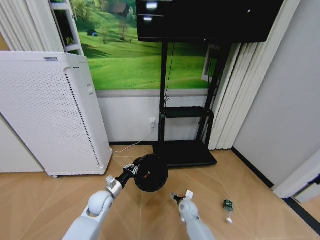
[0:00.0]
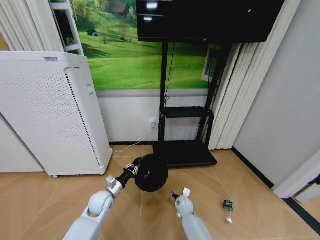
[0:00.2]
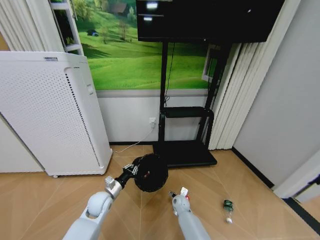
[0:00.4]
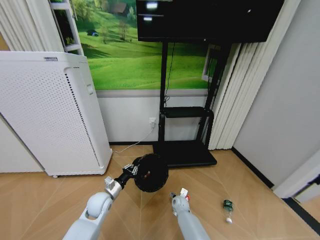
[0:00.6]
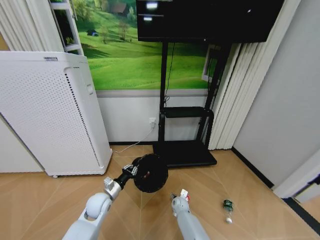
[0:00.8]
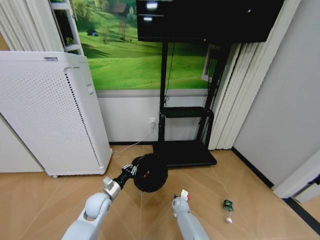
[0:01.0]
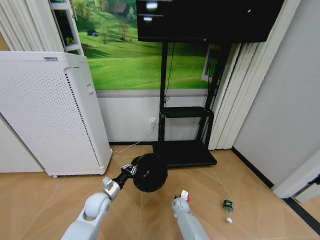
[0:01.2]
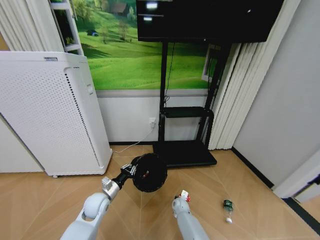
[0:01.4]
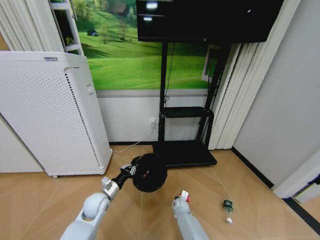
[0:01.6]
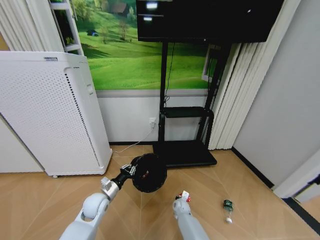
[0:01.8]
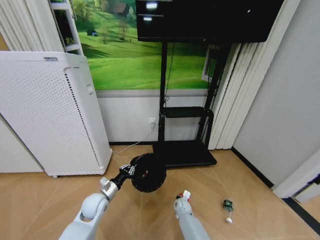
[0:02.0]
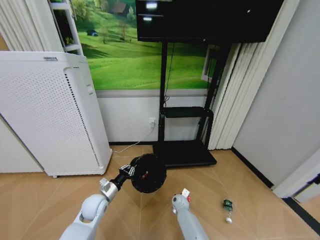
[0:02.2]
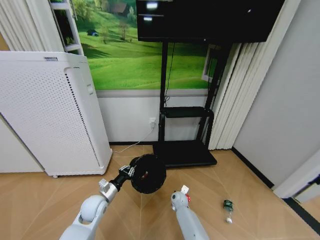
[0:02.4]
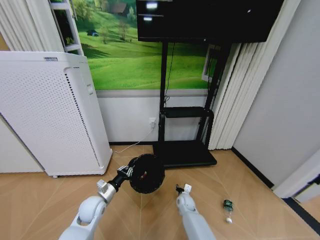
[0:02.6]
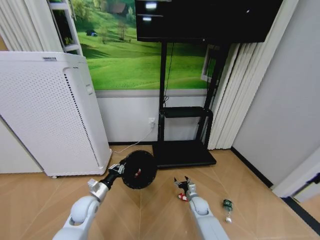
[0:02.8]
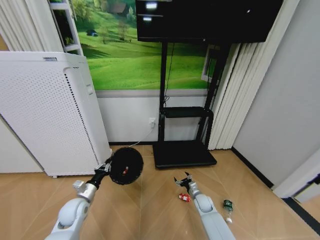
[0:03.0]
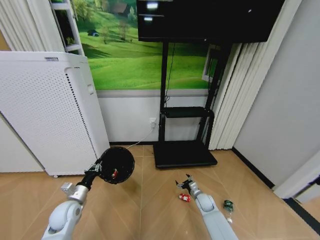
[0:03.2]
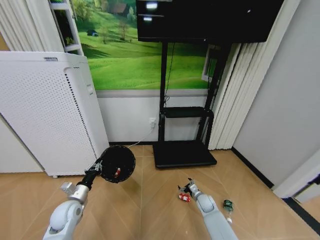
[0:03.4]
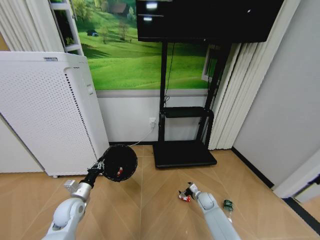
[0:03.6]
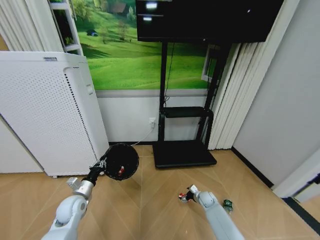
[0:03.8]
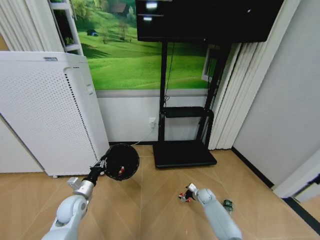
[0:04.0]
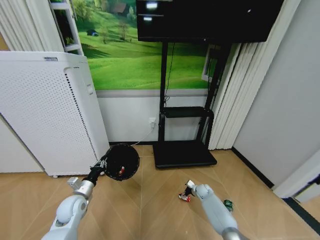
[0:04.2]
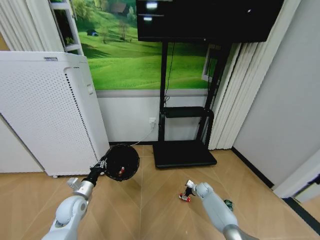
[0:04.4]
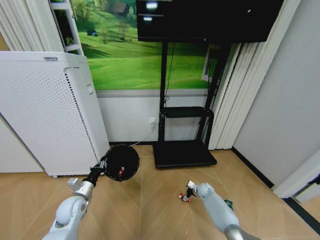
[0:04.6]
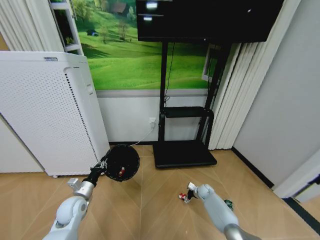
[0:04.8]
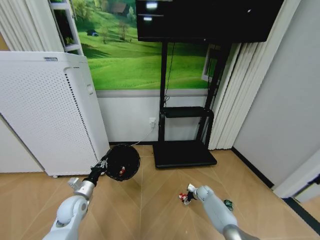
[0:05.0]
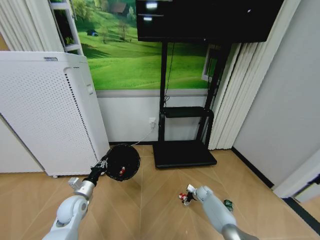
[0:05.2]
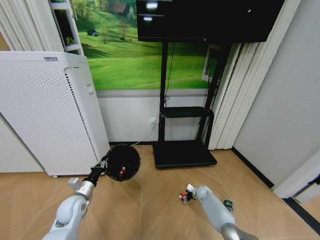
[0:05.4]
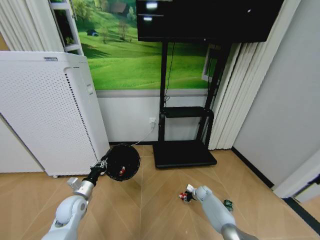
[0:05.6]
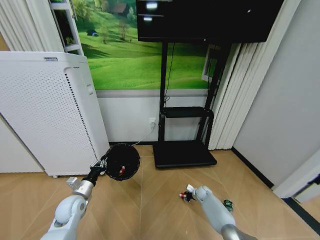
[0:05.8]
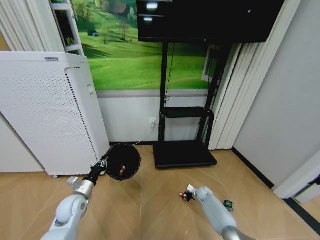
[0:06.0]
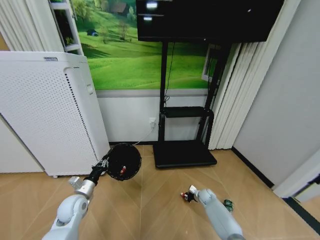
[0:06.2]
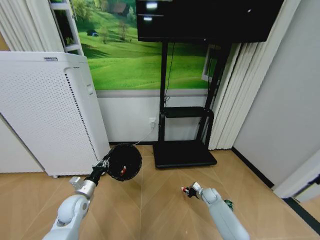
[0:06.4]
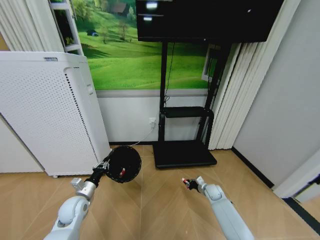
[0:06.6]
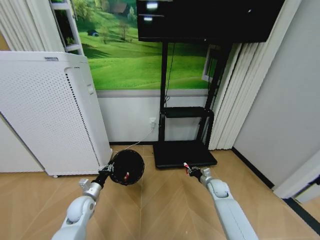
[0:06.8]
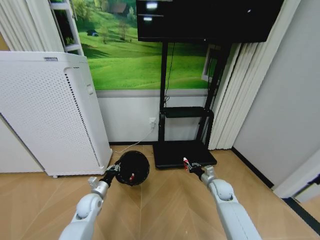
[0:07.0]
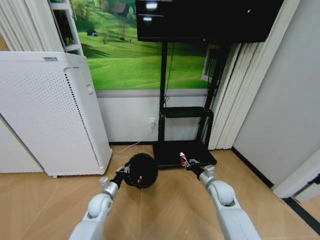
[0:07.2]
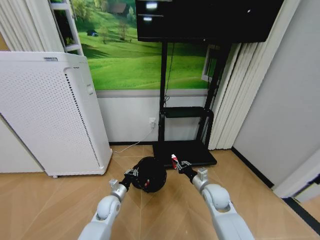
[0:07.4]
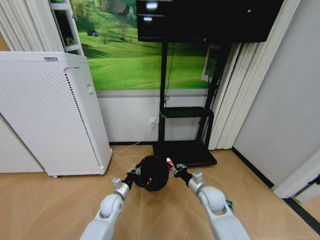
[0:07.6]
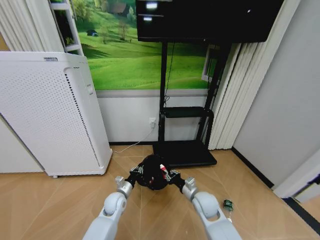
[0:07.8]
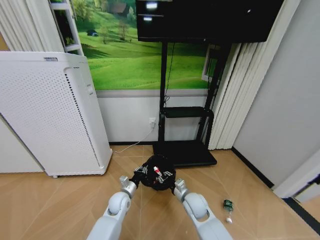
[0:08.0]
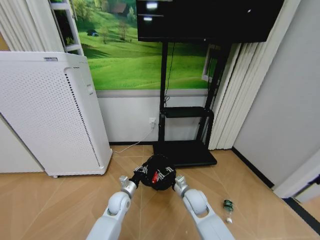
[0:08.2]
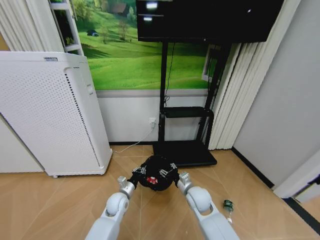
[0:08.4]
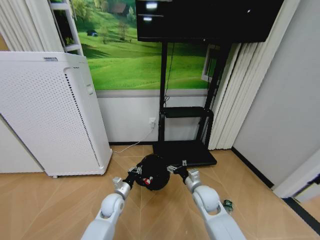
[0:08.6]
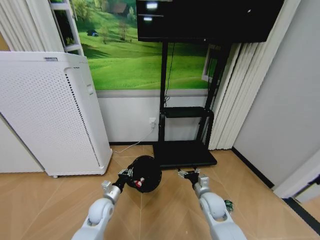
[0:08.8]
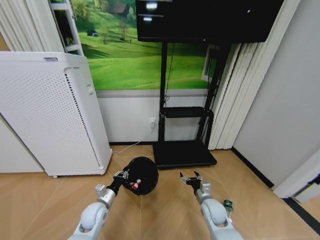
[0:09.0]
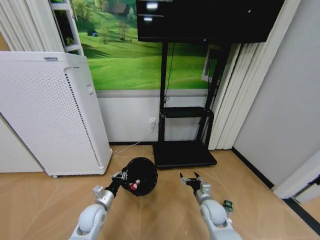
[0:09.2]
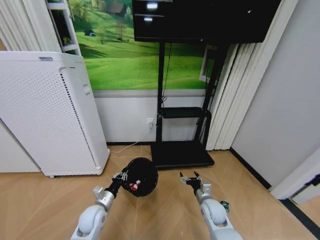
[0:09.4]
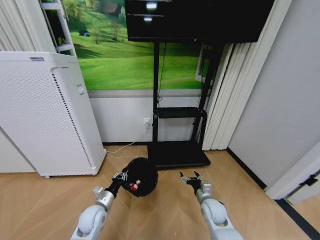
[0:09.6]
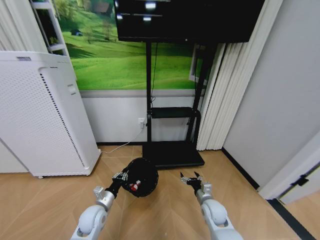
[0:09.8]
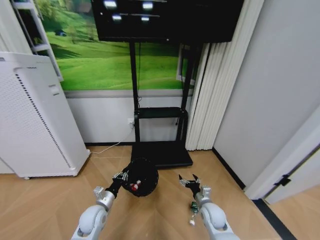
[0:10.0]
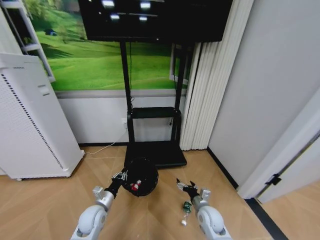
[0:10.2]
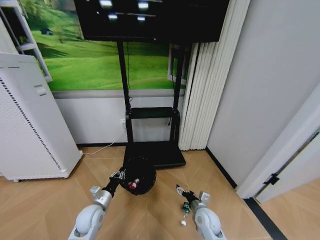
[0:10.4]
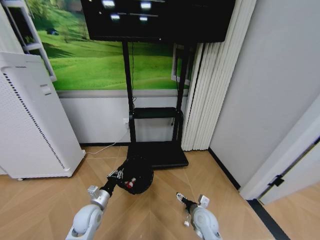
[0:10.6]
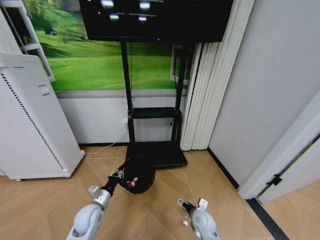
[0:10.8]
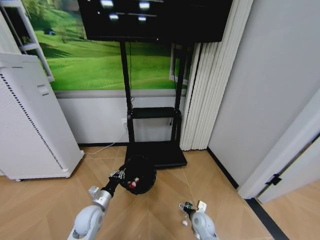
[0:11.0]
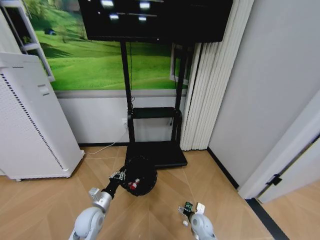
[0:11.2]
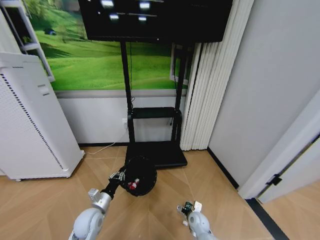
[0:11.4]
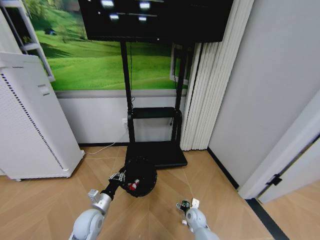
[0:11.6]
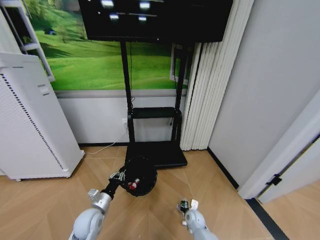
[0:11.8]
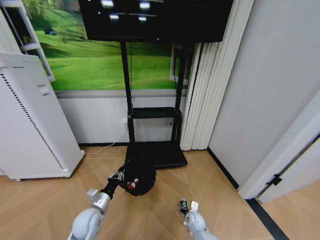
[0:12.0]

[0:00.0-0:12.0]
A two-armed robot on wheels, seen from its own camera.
Task of the whole recording: Pick up the trash bin and place the garbage on the floor into it.
0:00.0 to 0:01.6: The right gripper heads downward, covering approximately 5 cm, and closes.
0:01.6 to 0:03.0: The right gripper is displaced to the right and upward by about 15 cm, and opens its fingers; the left gripper moves to the left, roughly 10 cm.
0:03.0 to 0:04.4: The right gripper is displaced forward and to the right by approximately 10 cm.
0:04.4 to 0:06.0: The right gripper closes.
0:06.0 to 0:07.6: The right gripper goes roughly 30 cm upward, backward and to the left. Meanwhile the left gripper heads to the right and downward, covering roughly 15 cm.
0:07.6 to 0:09.0: The right gripper travels downward by about 5 cm, goes to the left and returns, about 5 cm each way, and opens. The left gripper shifts approximately 5 cm to the left.
0:10.4 to 0:12.0: The right gripper goes approximately 15 cm downward, and closes its fingers.

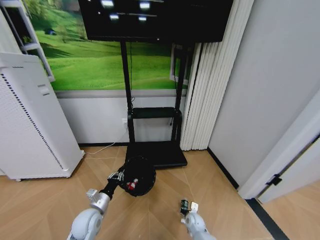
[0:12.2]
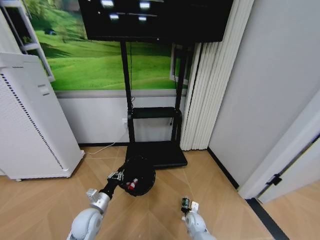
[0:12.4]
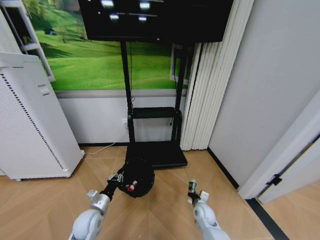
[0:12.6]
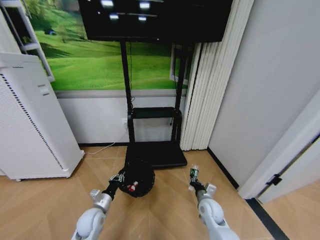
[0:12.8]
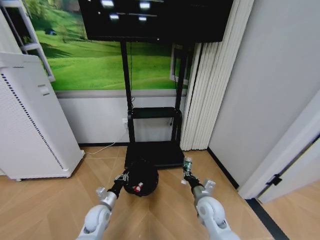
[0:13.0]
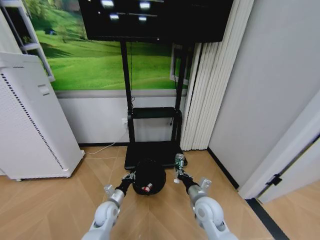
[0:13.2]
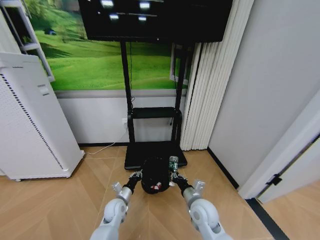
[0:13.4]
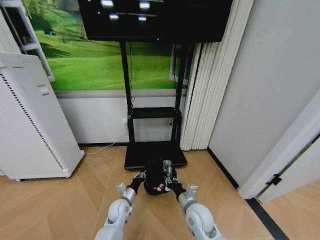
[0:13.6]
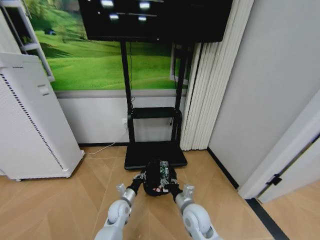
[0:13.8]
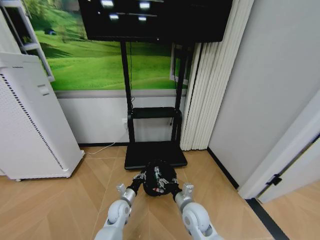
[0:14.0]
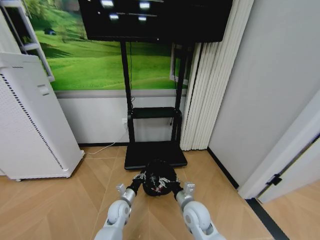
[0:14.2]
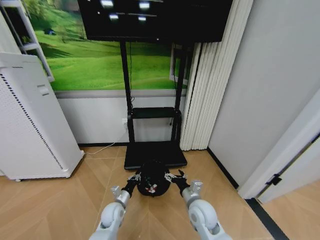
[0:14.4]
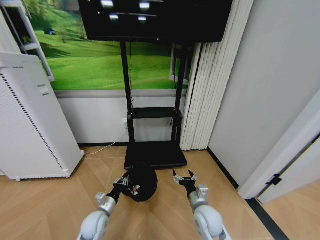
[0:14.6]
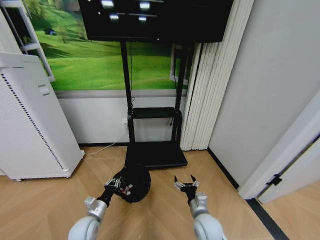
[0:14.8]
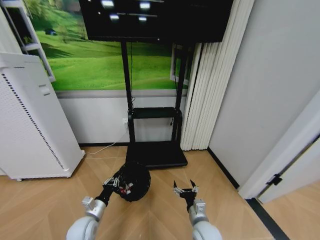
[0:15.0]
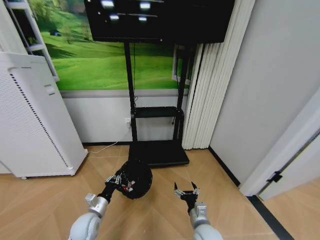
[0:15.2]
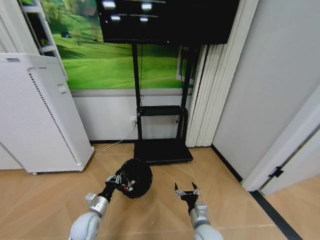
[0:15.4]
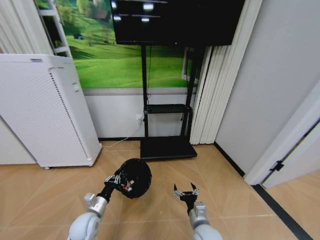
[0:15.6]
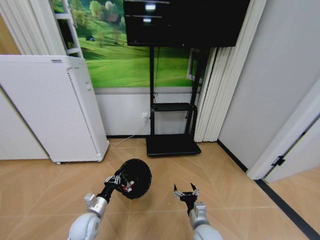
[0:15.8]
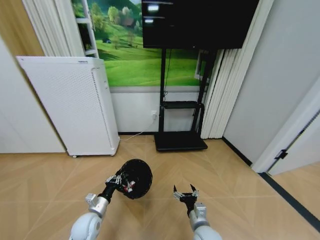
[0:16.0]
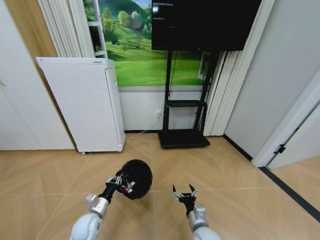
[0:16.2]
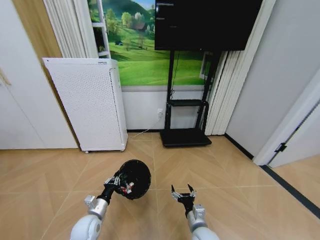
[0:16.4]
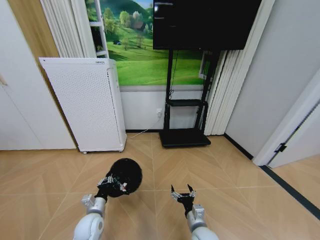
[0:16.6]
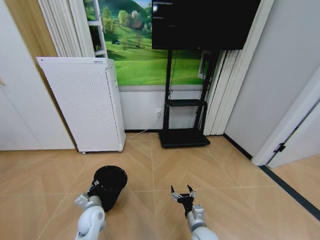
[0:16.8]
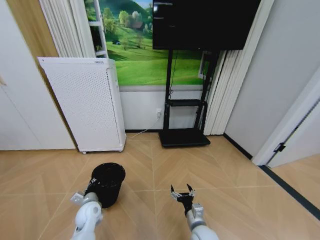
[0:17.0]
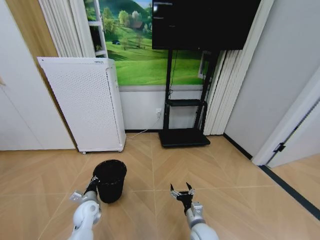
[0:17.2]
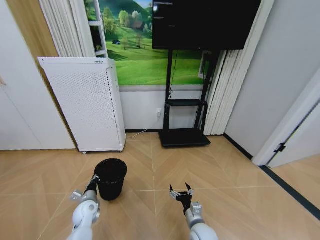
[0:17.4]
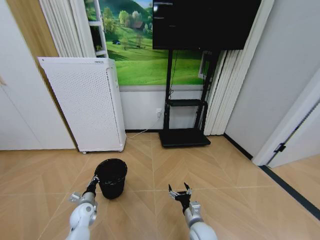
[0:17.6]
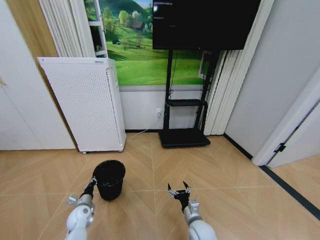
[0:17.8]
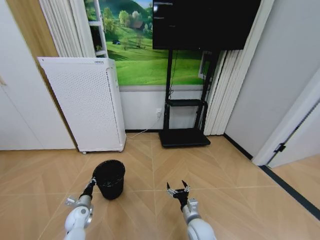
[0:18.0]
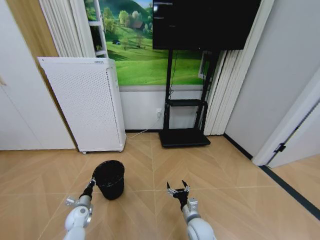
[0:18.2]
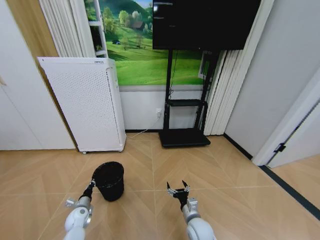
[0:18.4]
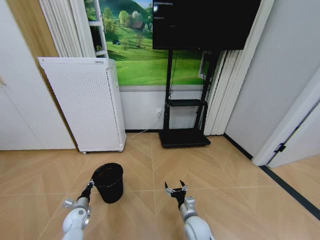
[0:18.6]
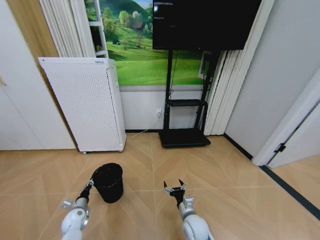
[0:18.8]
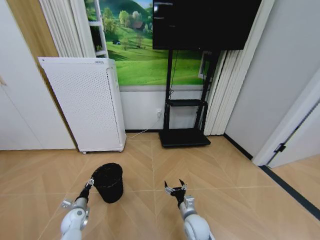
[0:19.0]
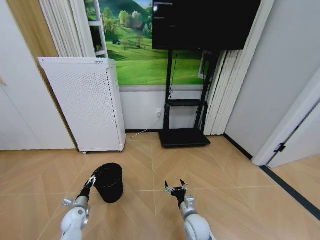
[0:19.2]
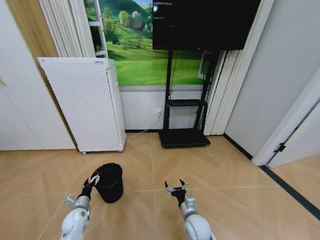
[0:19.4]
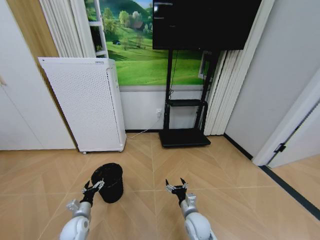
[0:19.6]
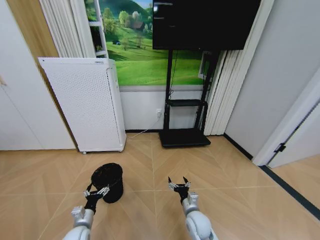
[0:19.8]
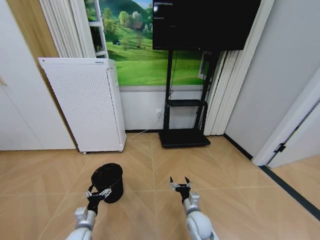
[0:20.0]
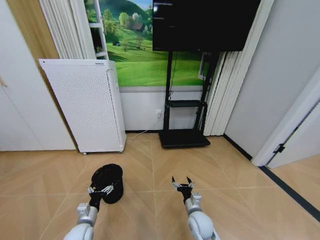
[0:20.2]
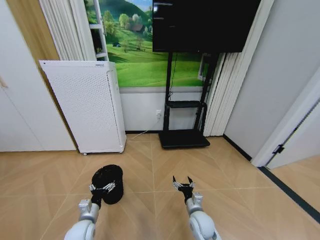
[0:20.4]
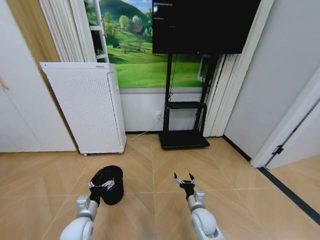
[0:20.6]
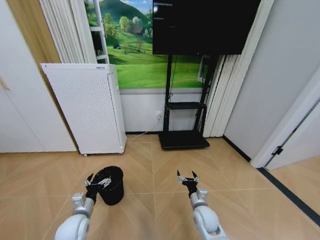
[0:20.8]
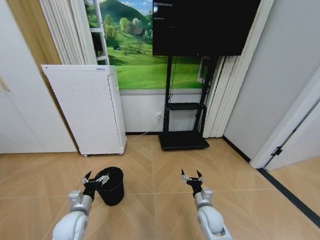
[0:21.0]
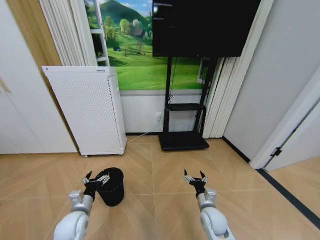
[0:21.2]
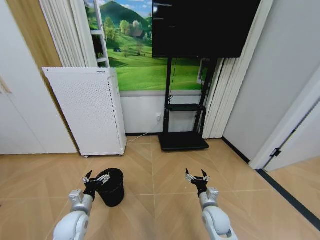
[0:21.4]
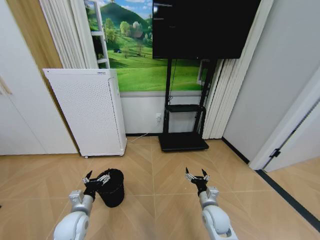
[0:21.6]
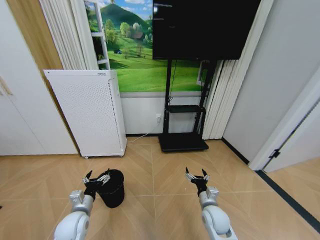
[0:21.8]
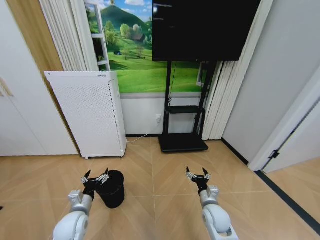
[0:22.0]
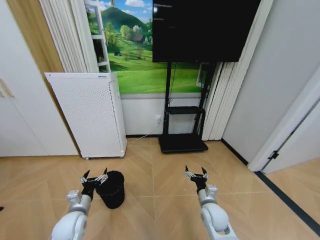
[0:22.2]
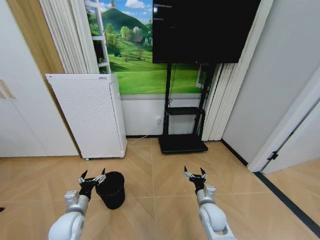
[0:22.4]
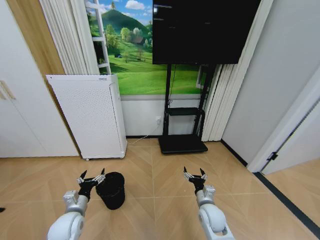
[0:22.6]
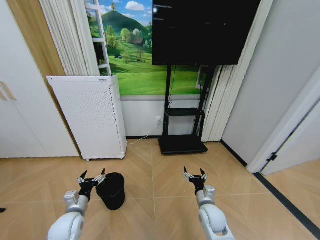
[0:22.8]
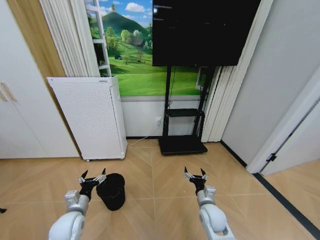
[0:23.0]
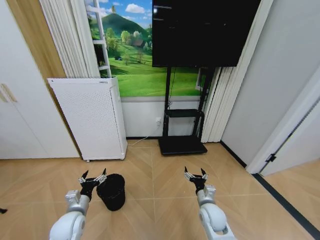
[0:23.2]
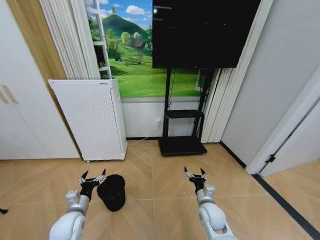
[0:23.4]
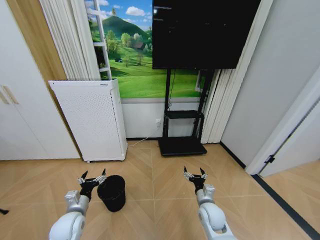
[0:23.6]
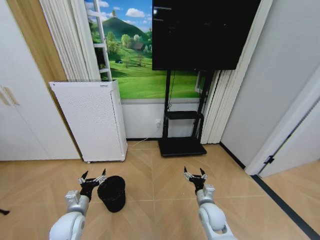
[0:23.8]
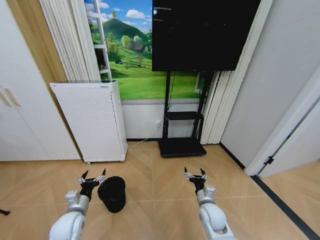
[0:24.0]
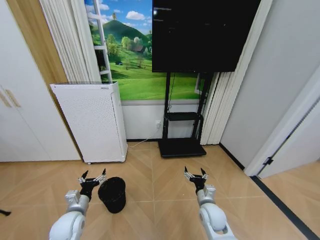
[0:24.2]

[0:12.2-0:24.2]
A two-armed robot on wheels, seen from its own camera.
Task of the whole recording: Pick up the trash bin and place the garbage on the floor into it.
0:12.2 to 0:13.8: The right gripper moves upward, about 25 cm. Meanwhile the left gripper travels to the right, downward and forward by some 15 cm.
0:13.8 to 0:15.2: The left gripper shifts some 15 cm to the left and backward. Meanwhile the right gripper shifts about 5 cm backward, and opens.
0:16.6 to 0:18.2: The left gripper is displaced to the left, downward and forward by some 15 cm.
0:18.2 to 0:19.8: The left gripper shifts some 10 cm backward and to the right, and opens up.
0:19.8 to 0:21.2: The left gripper heads upward, covering approximately 10 cm. Meanwhile the right gripper goes approximately 5 cm to the right.
0:21.2 to 0:22.6: The grippers move only a little.
0:22.6 to 0:24.2: The two grippers keep their place.
